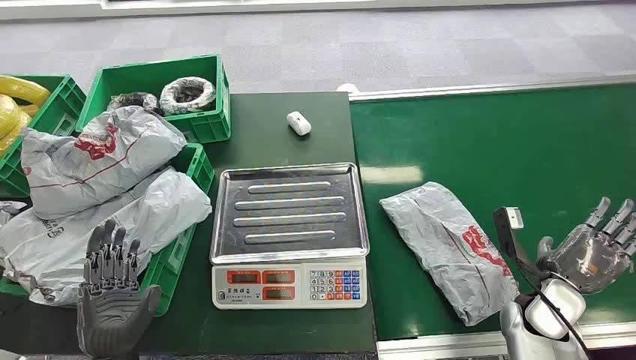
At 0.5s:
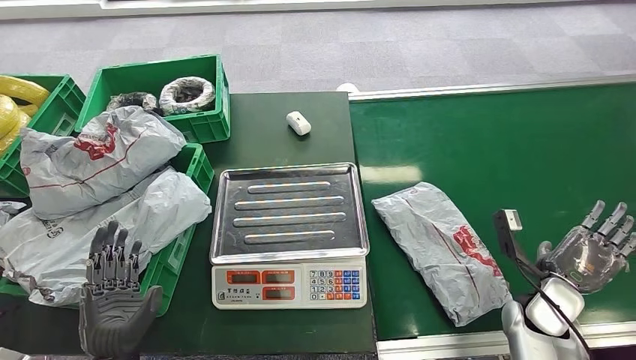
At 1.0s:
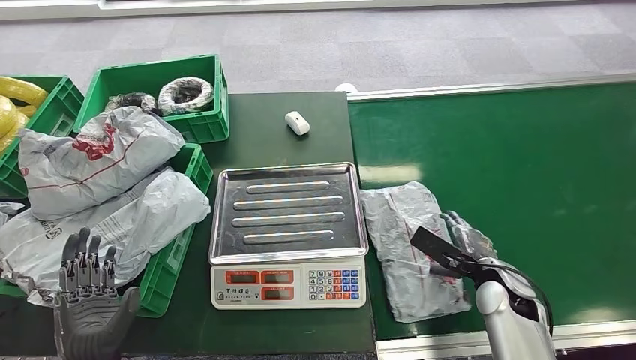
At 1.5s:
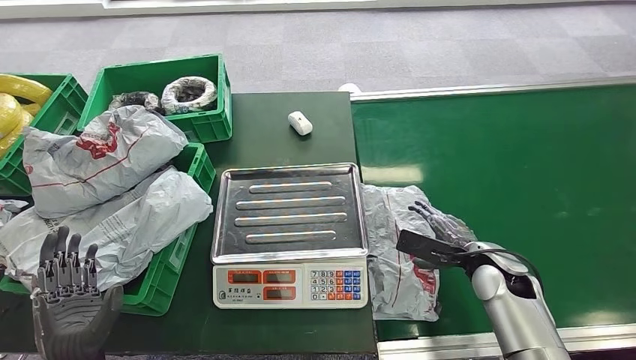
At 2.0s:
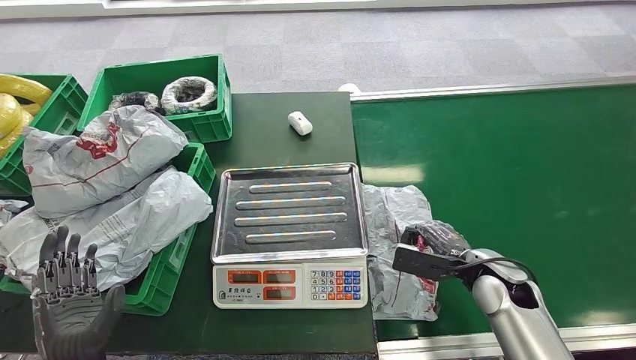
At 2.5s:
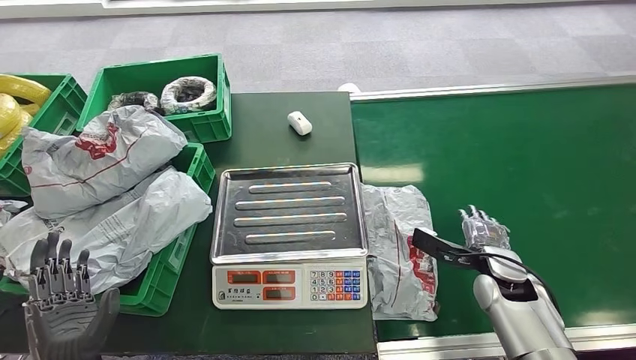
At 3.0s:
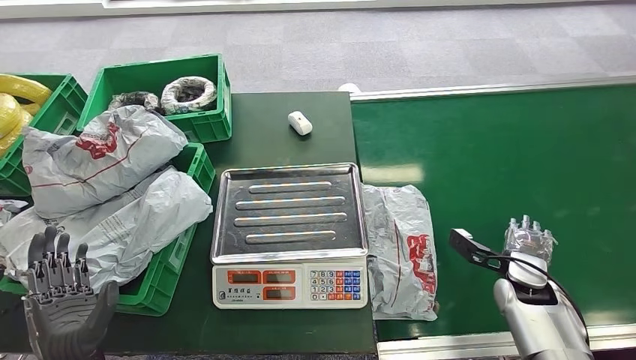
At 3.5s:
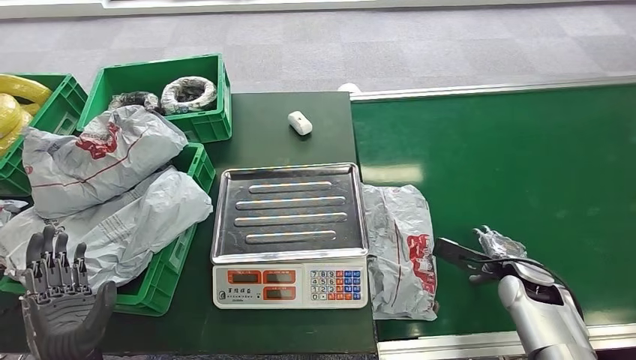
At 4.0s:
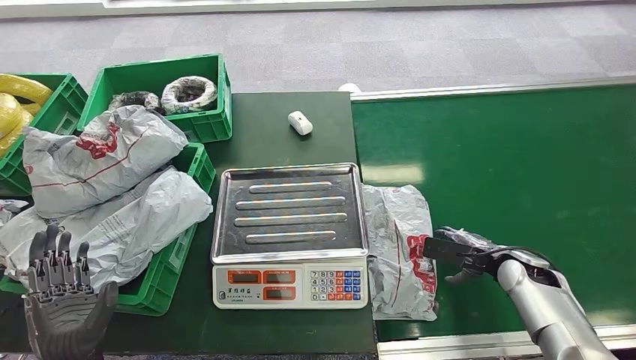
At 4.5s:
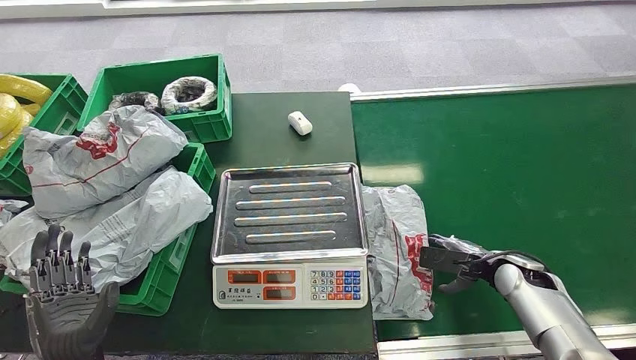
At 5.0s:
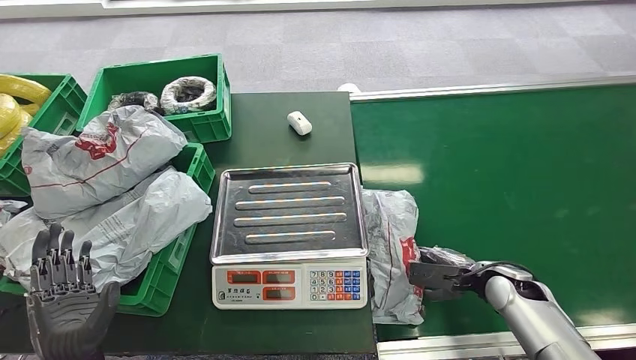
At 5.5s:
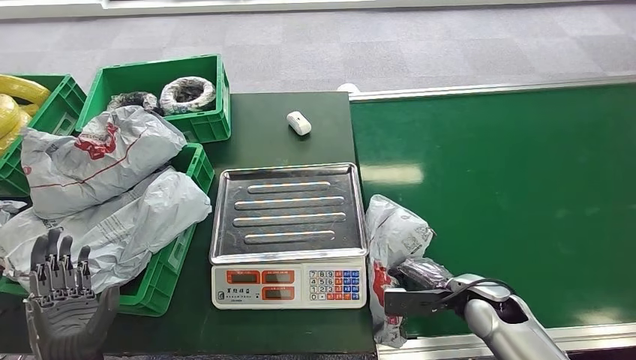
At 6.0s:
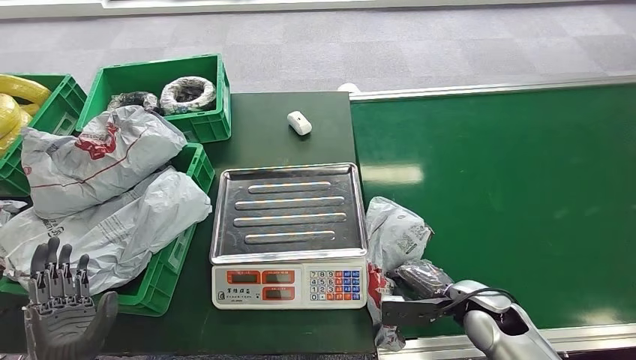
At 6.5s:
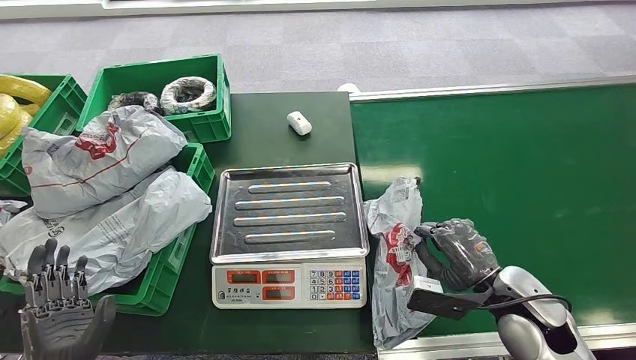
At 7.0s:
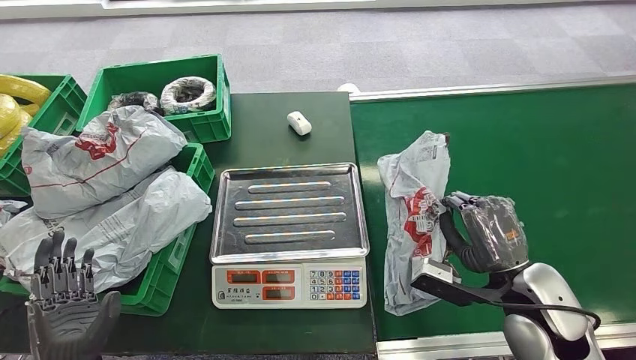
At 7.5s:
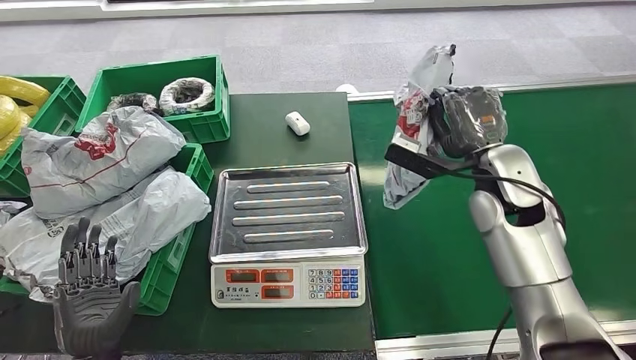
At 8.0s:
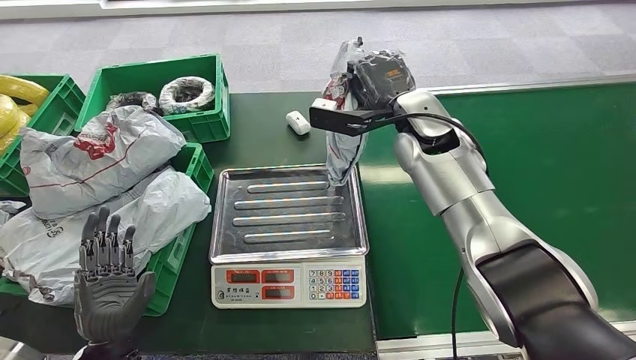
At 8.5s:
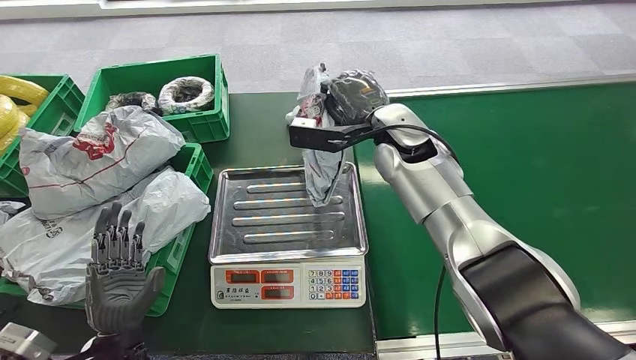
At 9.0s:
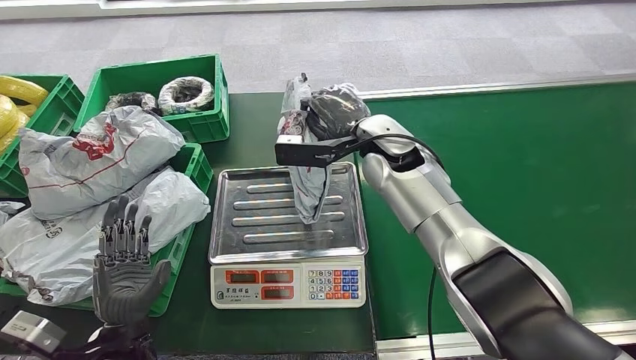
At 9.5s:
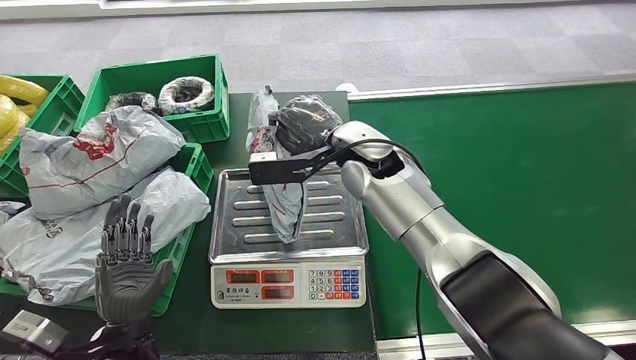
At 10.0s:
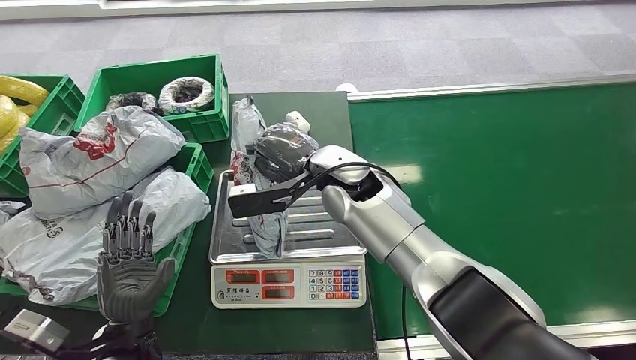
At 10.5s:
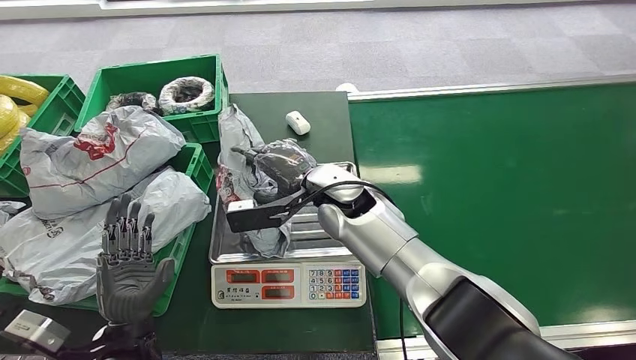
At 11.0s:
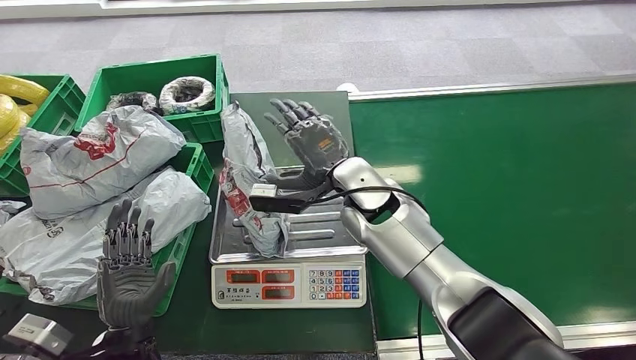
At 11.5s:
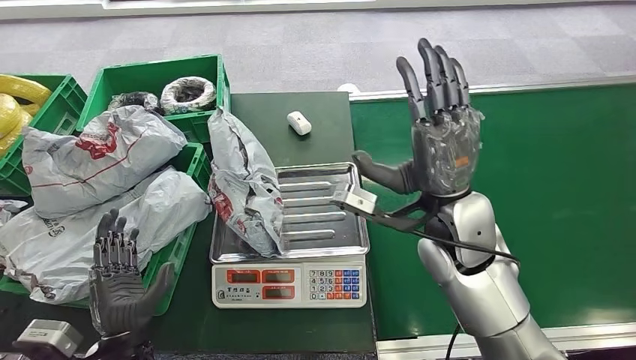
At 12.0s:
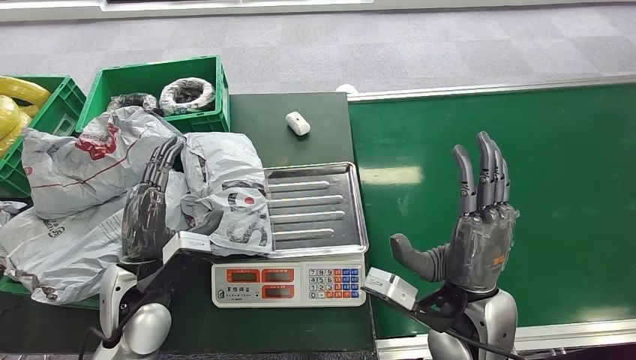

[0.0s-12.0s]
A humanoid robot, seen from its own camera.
Step, 0.0s to 7.0s: Pick up the package from the conveyor belt.
Step, 7.5s to 11.0s: Place the package onto the inbound machine.
2.0s to 4.0s: The right hand goes about 10 cm to the right.
4.0s to 6.0s: The right hand is displaced to the left and backward by roughly 10 cm.

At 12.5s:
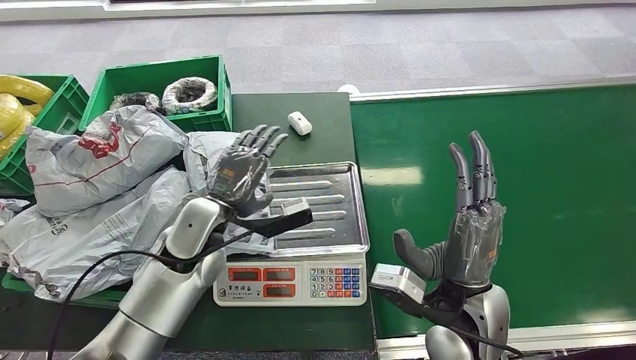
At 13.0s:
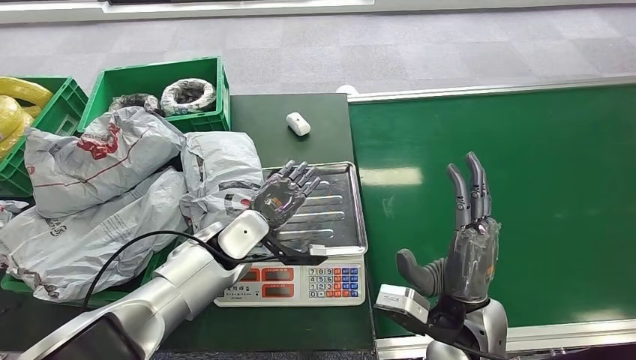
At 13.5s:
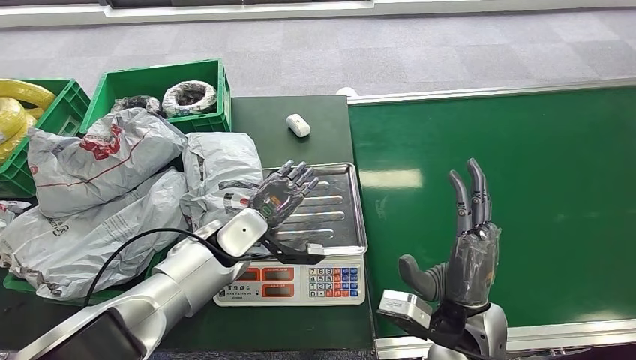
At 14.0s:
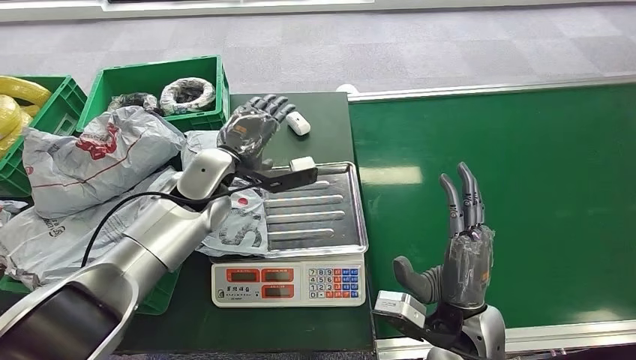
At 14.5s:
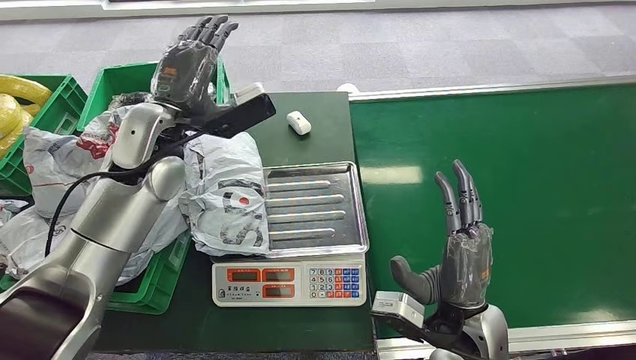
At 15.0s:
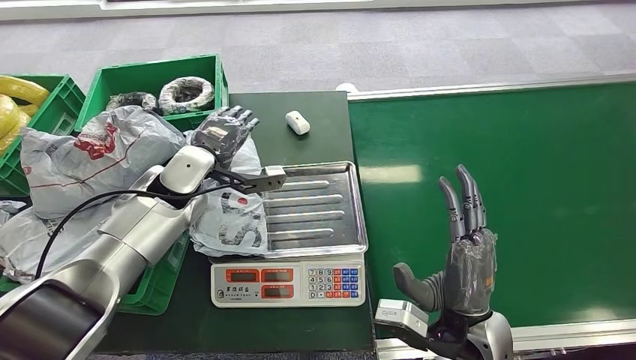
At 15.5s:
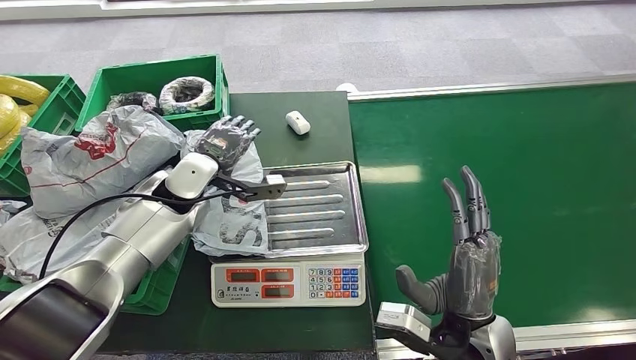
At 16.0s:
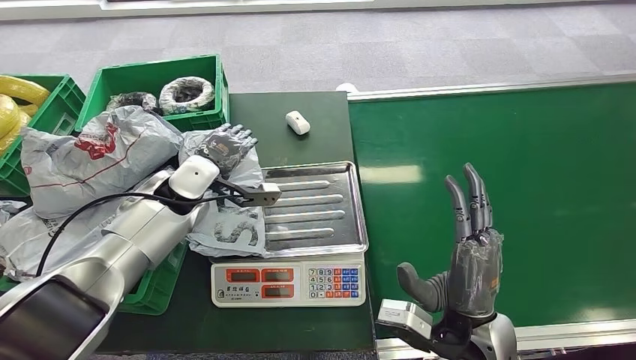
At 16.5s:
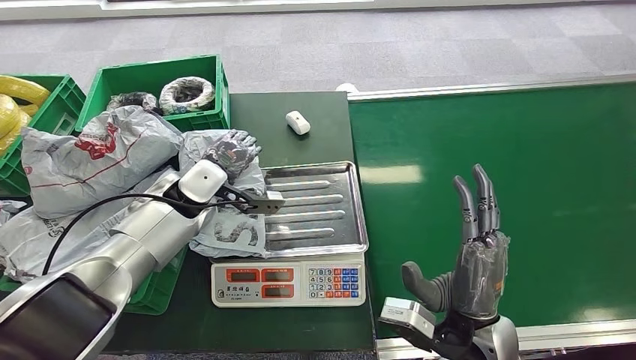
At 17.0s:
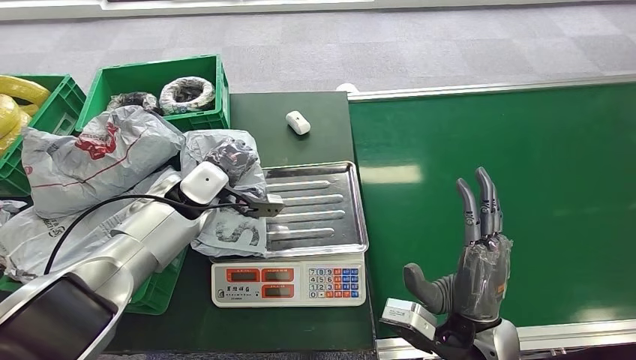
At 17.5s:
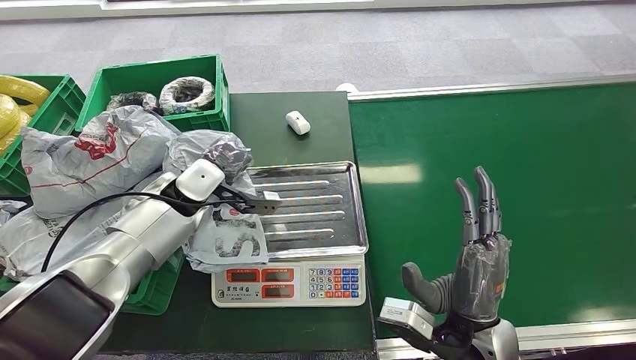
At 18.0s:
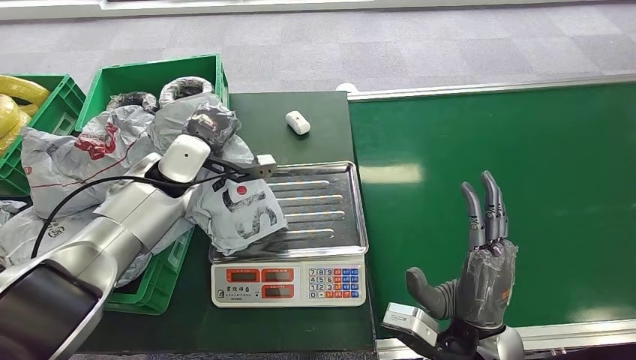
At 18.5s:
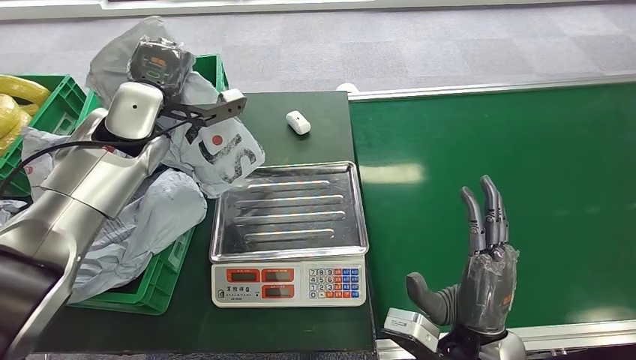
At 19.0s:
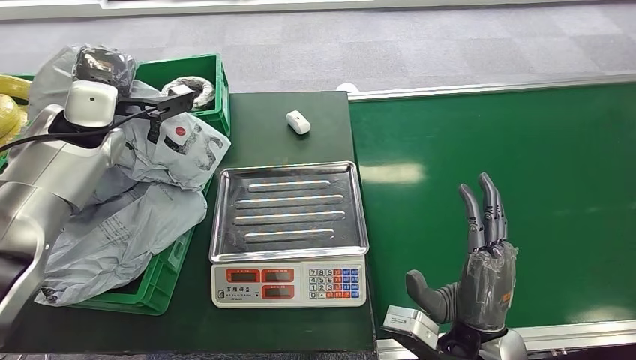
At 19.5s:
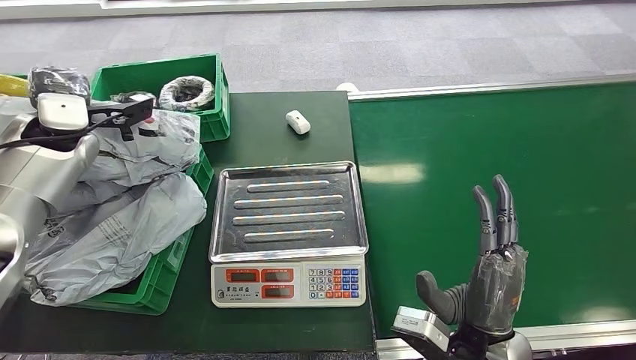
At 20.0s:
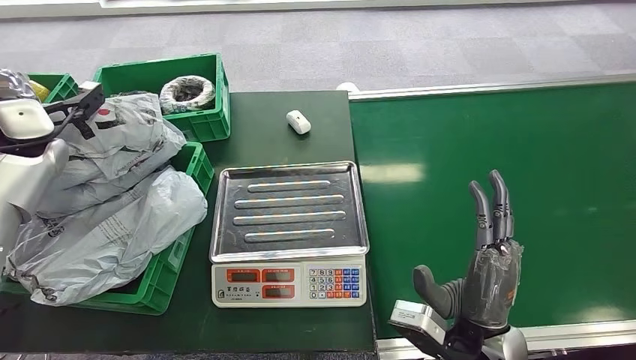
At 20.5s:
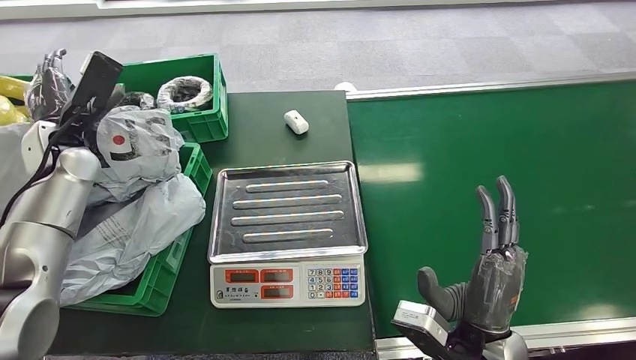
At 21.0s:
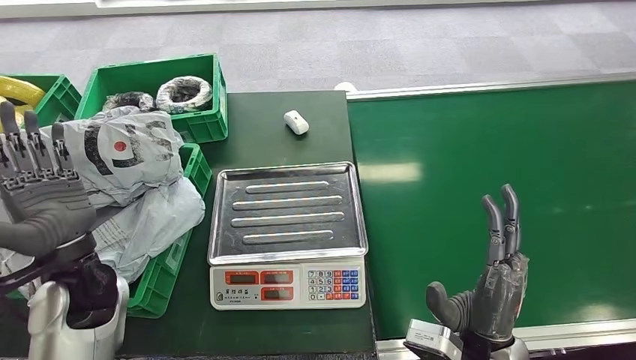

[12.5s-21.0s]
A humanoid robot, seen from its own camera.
Step, 12.5s to 18.5s: Pick up the package from the inbound machine.
Step, 19.0s to 21.0s: Place the package into the parcel locker.
